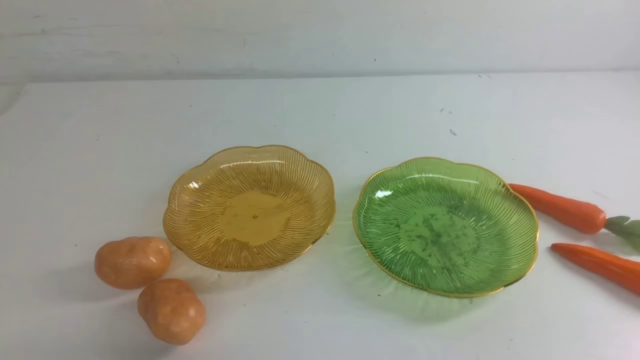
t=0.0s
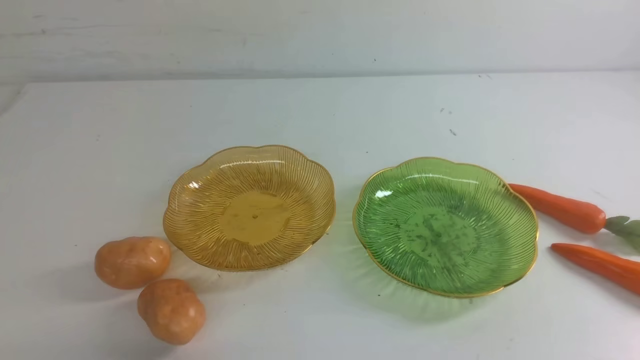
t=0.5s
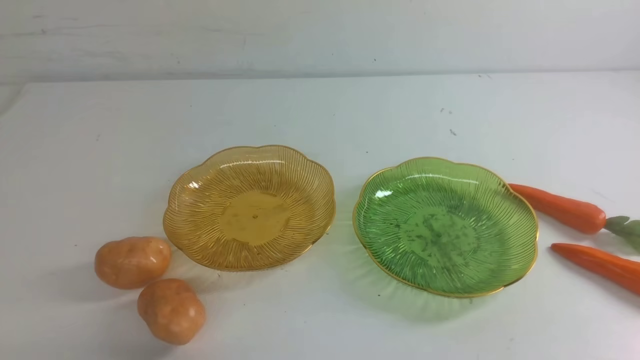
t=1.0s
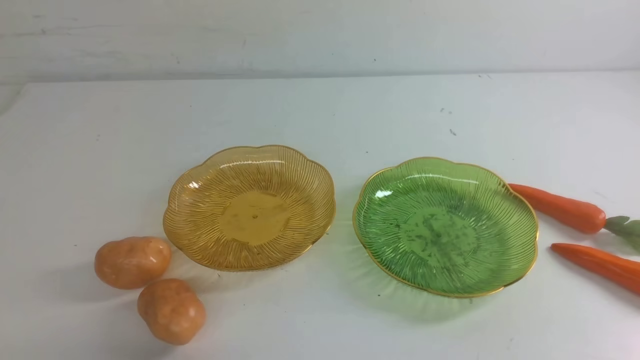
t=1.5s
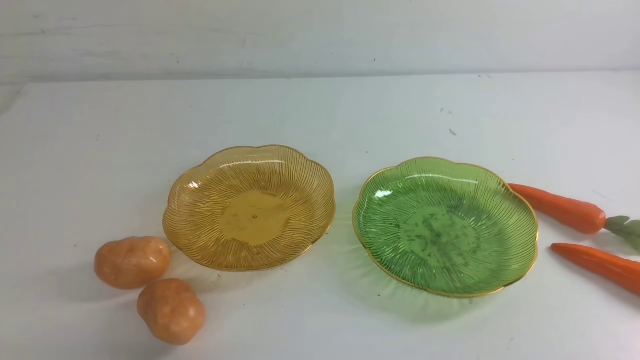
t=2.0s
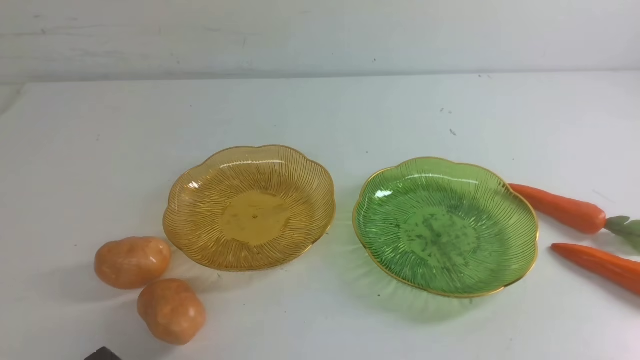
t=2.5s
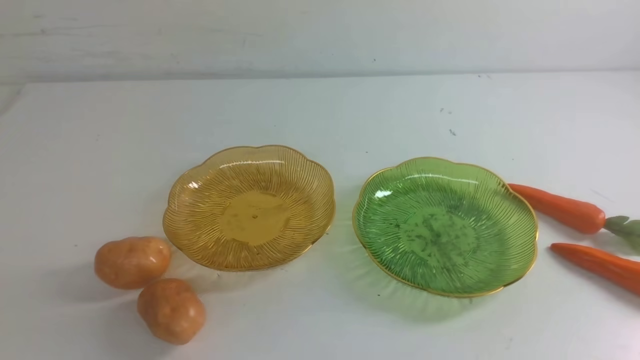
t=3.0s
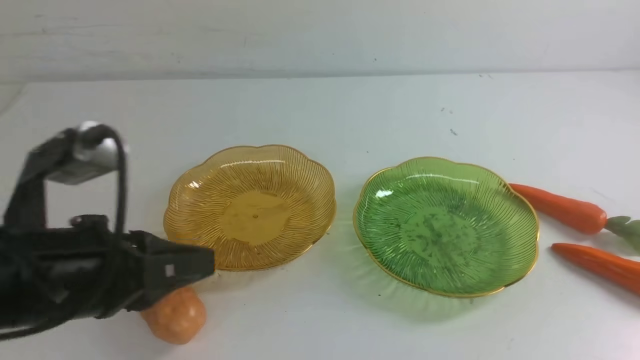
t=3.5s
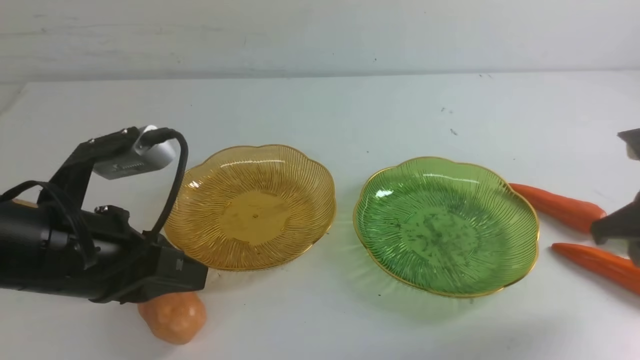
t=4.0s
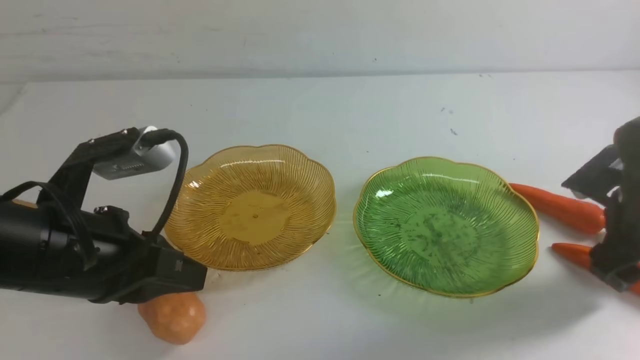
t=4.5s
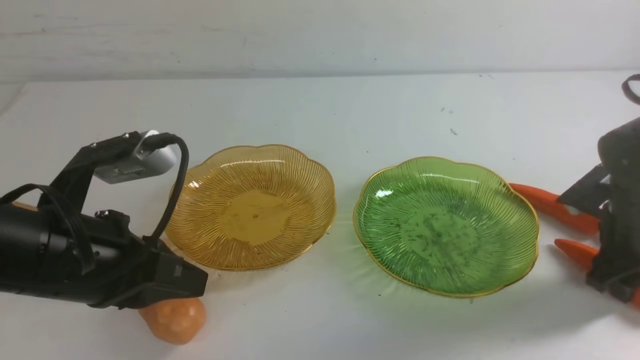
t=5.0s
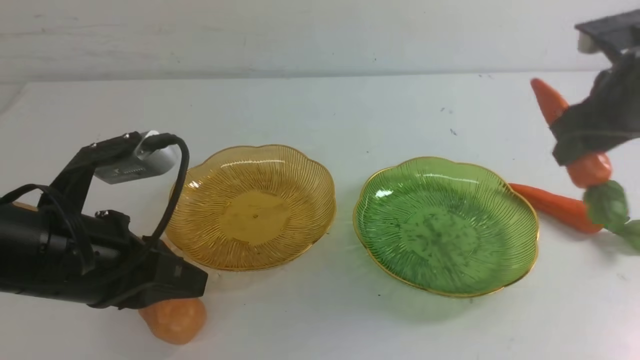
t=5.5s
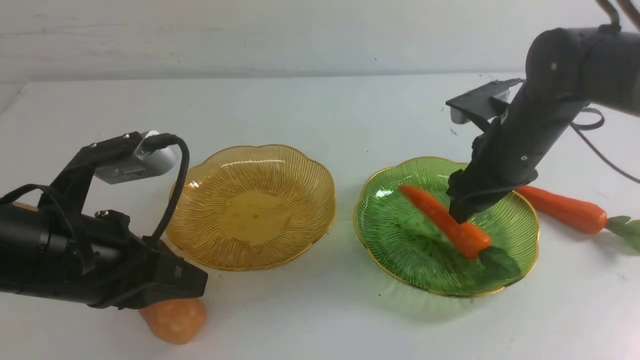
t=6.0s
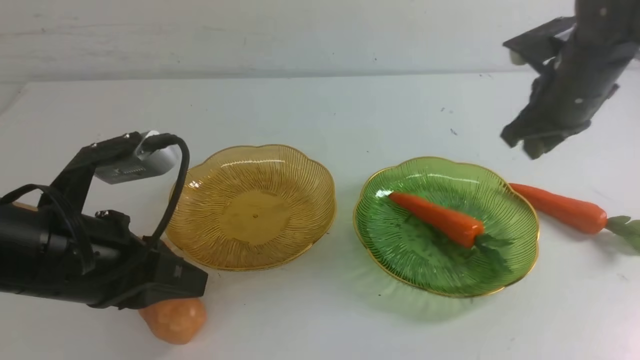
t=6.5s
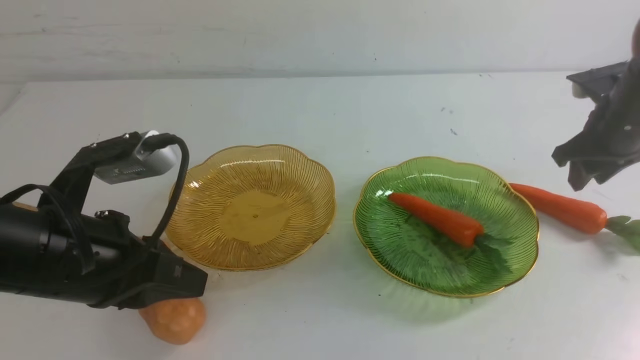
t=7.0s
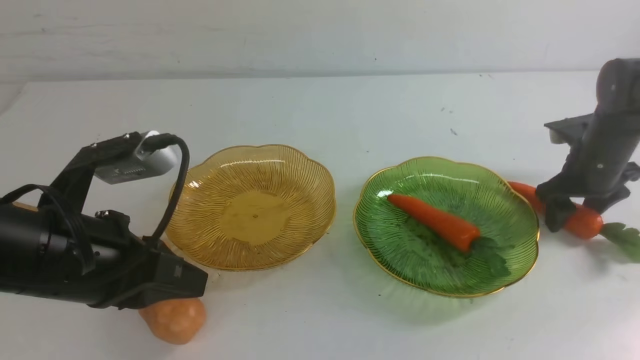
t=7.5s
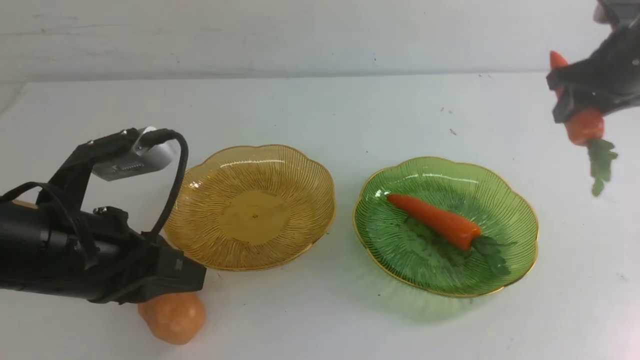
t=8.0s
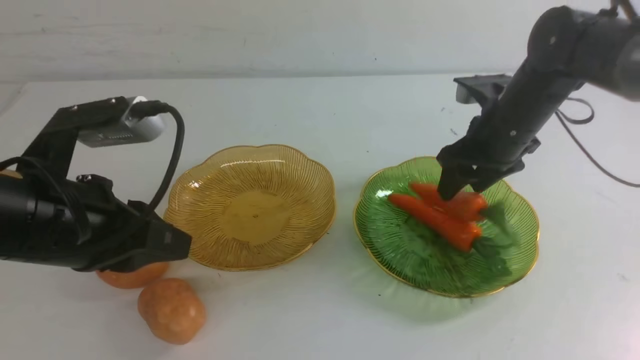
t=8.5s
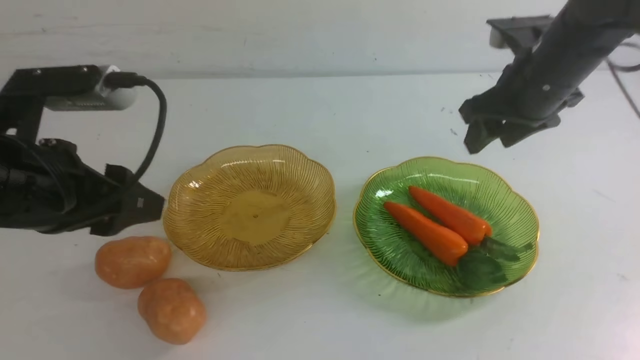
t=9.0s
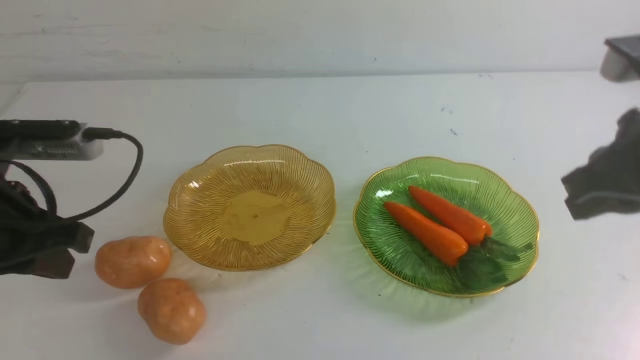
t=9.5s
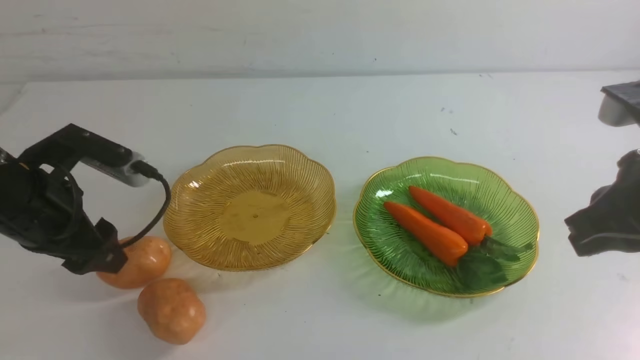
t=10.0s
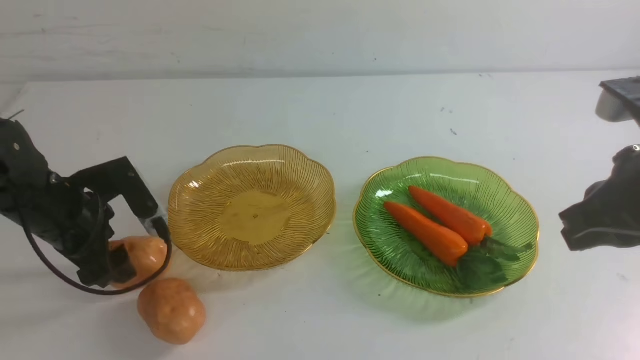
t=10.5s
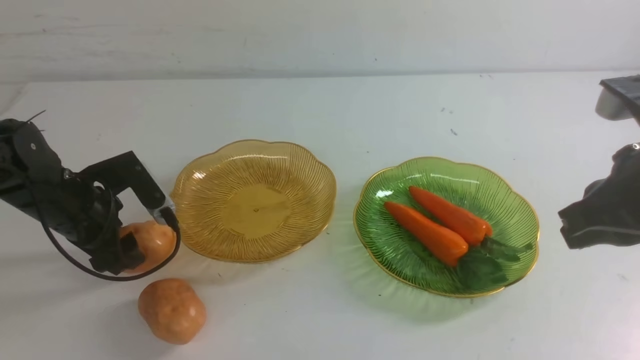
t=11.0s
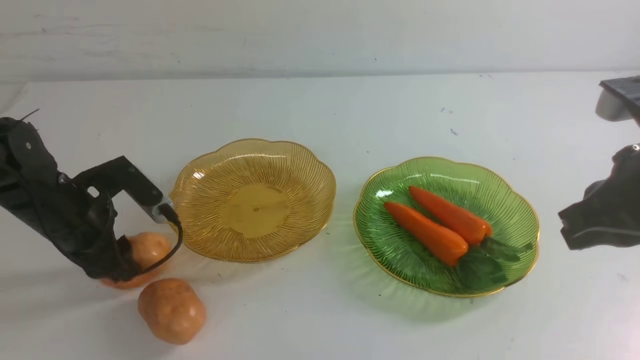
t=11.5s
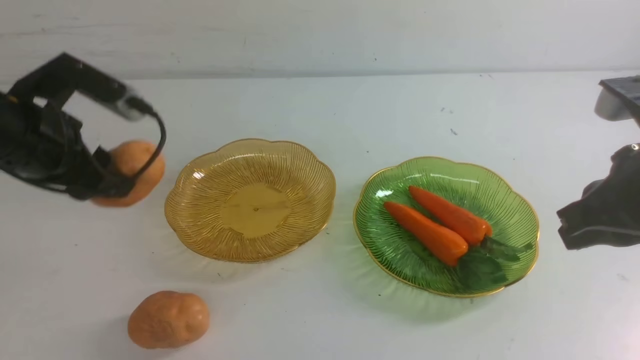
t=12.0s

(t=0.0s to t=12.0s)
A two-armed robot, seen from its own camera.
Step, t=0.0s - t=8.5s: use the right arm to grab a carrot and put it into the right plate.
t=2.0s - t=4.0s: The right gripper is displaced forward by roughly 25 cm, and opens its fingers. The left gripper travels forward and upward by some 20 cm.
t=4.0s - t=6.0s: The right gripper goes up and down, approximately 15 cm each way, reversing 2 times.
t=6.0s - t=8.0s: The right gripper moves about 15 cm to the right and comes back.
t=8.0s - t=10.0s: The left gripper heads forward, downward and to the left, covering about 20 cm, and opens; the right gripper is displaced backward by roughly 20 cm, and closes.
t=10.0s - t=12.0s: The left gripper shifts roughly 15 cm to the right, forward and upward.

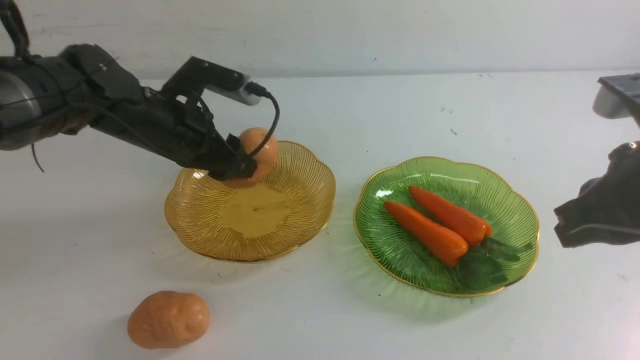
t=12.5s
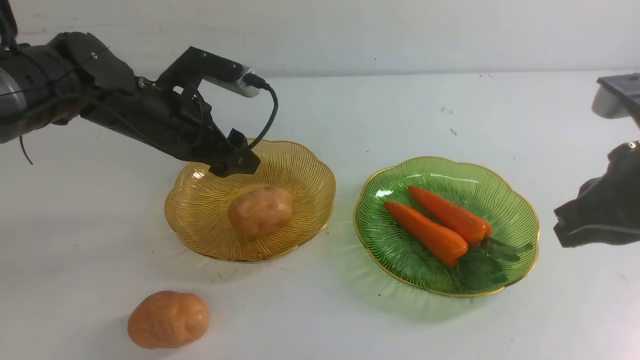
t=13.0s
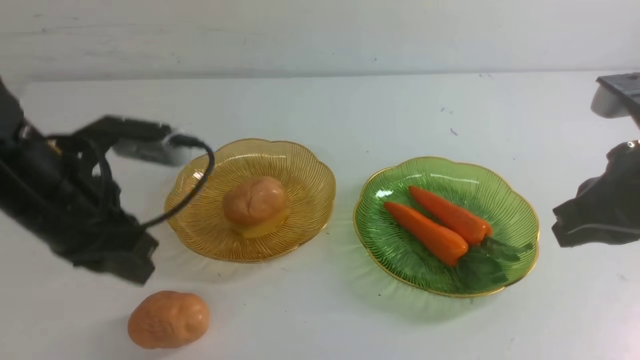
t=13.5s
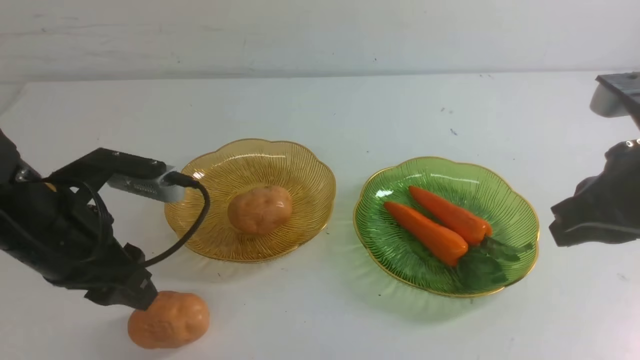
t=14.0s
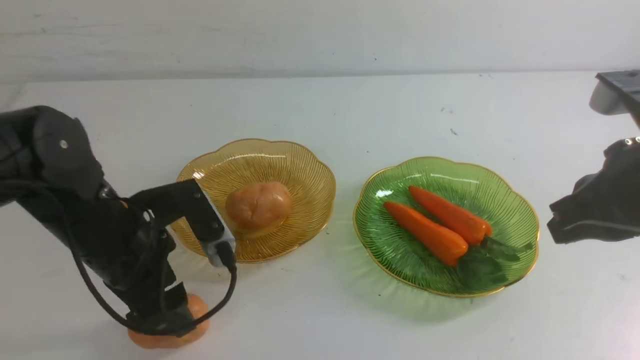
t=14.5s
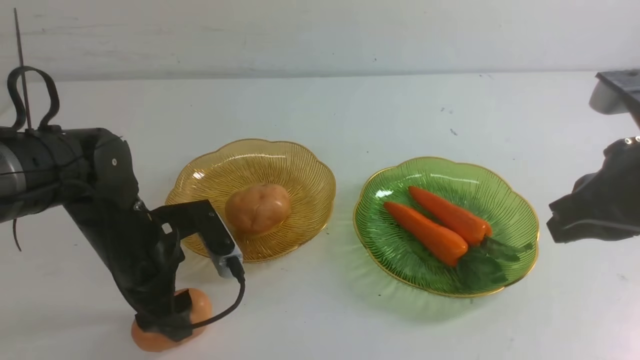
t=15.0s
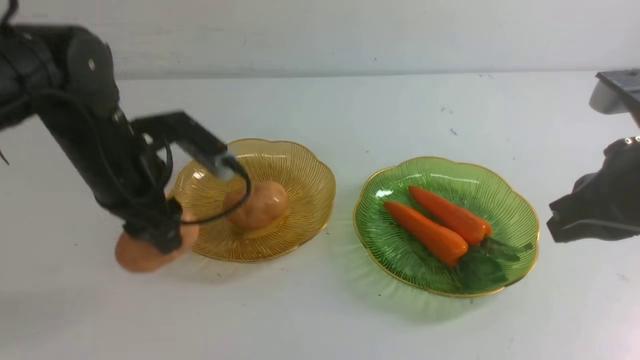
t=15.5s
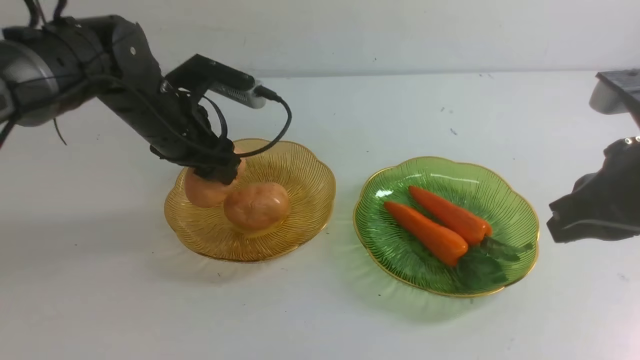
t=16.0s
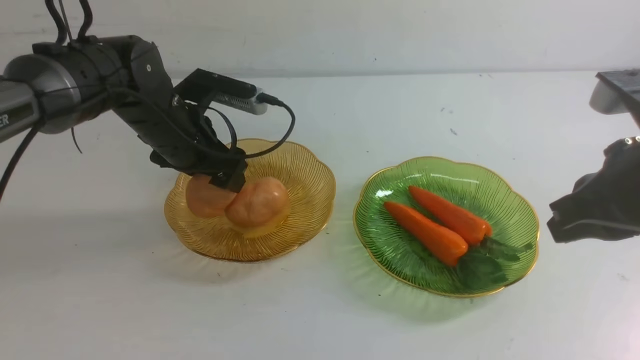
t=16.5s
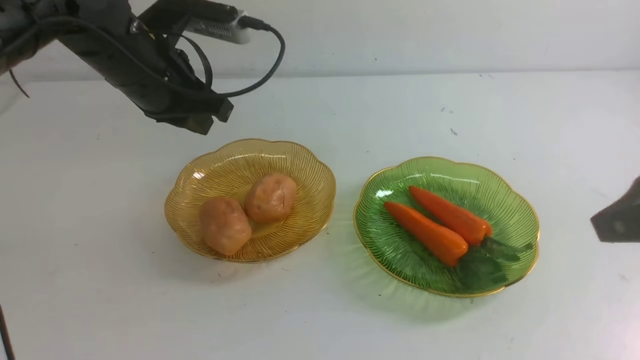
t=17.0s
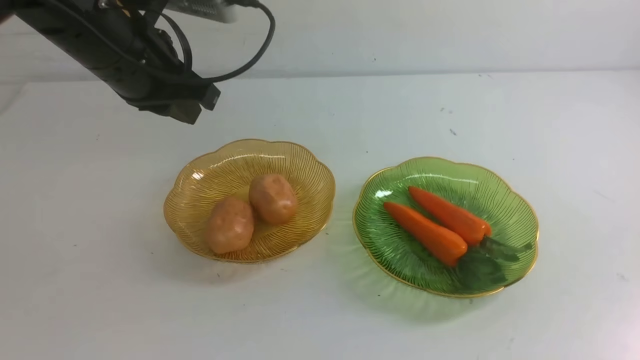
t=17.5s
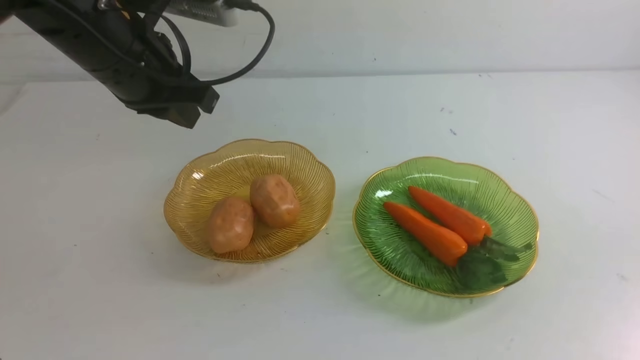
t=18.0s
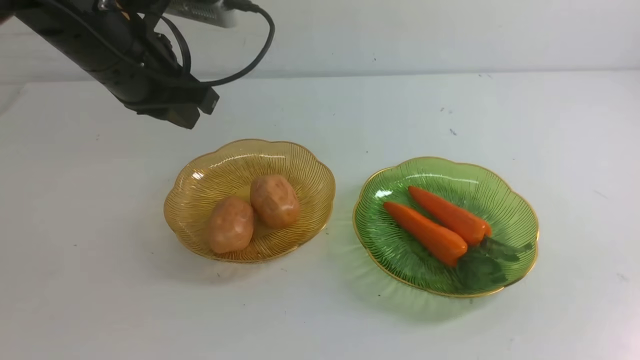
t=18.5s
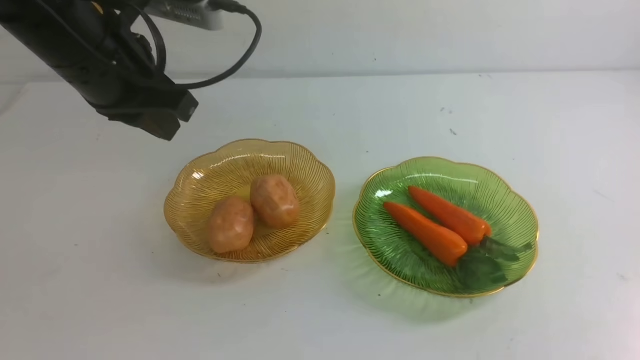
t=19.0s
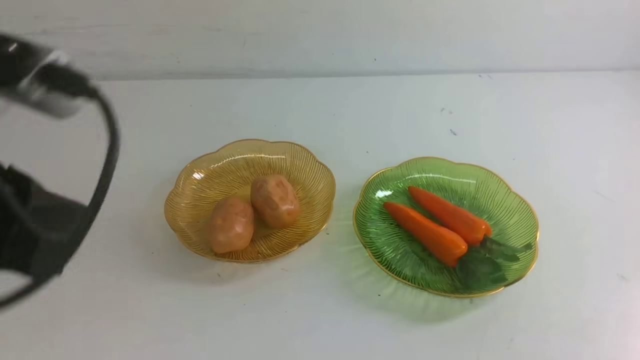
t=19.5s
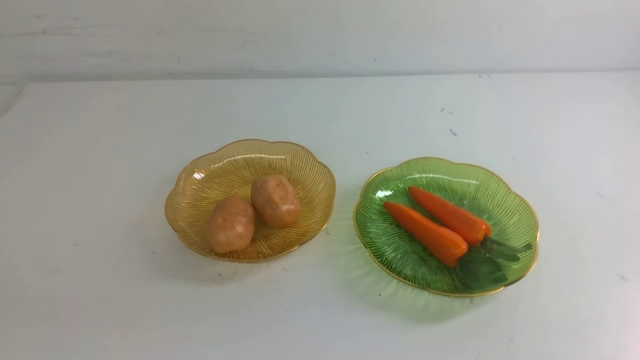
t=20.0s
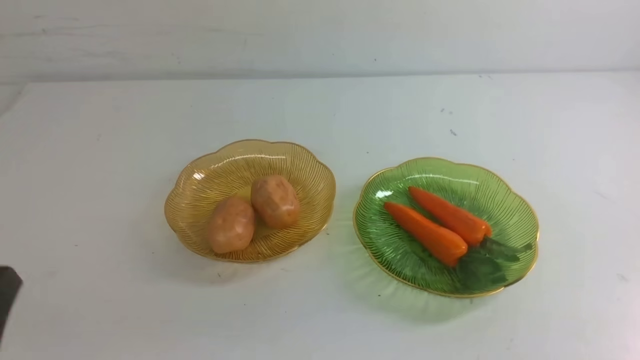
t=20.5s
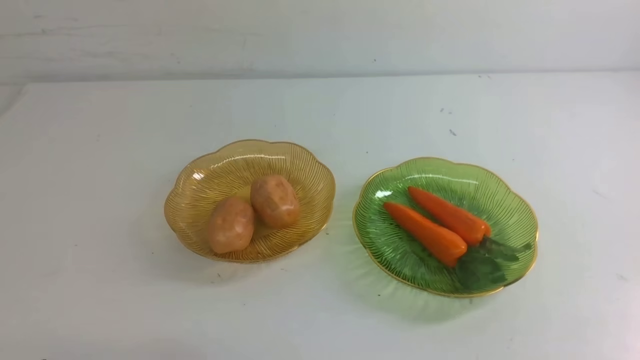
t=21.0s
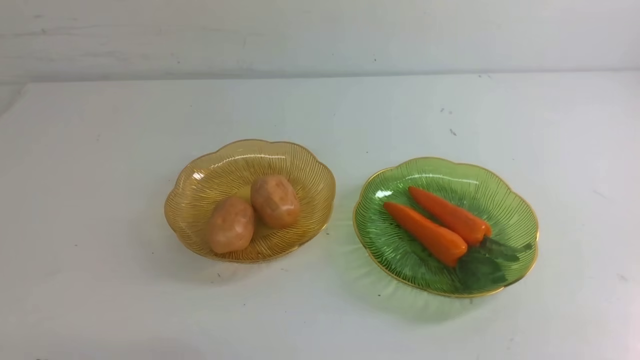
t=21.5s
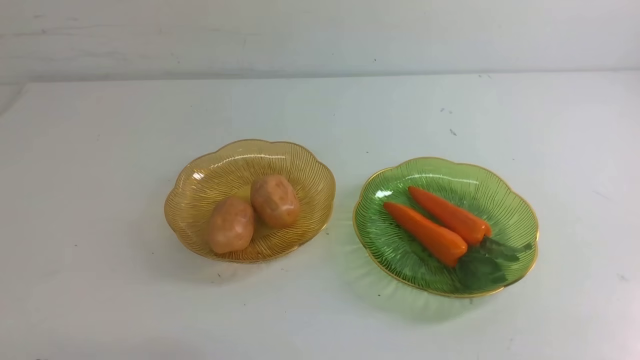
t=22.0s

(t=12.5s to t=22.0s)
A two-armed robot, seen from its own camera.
Step, t=12.5s - t=17.0s: Grab a potato with your left arm and put it on the left plate.
t=12.5s - t=14.5s: The left gripper is displaced backward and downward by some 10 cm, and closes, then reopens.
t=14.5s - t=16.5s: The left gripper goes up and down, some 15 cm each way, reversing 2 times, and closes up.
t=16.5s - t=18.0s: The left gripper moves about 5 cm, and closes its fingers. Meanwhile the right gripper goes about 15 cm backward and downward.
t=18.0s - t=20.0s: The right gripper moves downward, some 10 cm. The left gripper shifts some 30 cm backward.
